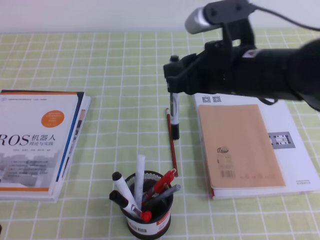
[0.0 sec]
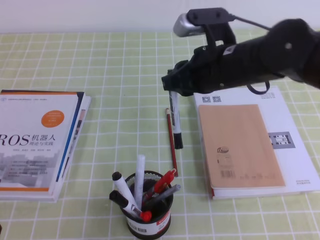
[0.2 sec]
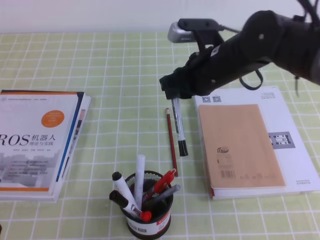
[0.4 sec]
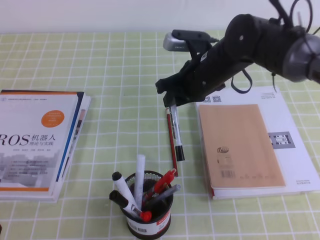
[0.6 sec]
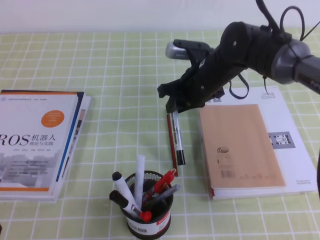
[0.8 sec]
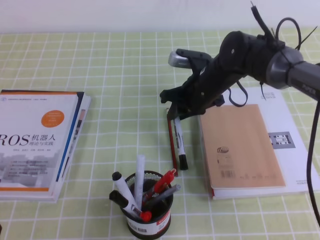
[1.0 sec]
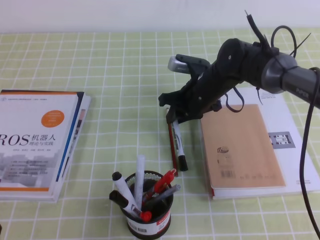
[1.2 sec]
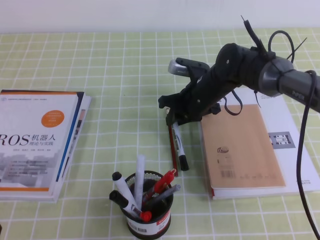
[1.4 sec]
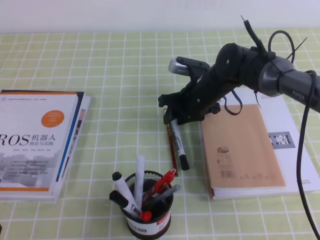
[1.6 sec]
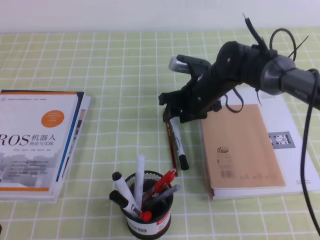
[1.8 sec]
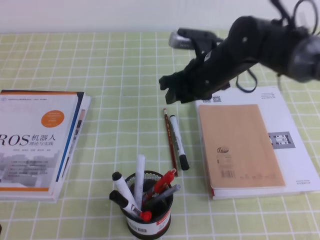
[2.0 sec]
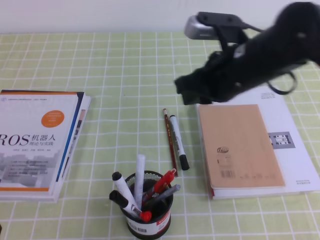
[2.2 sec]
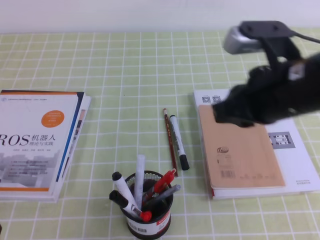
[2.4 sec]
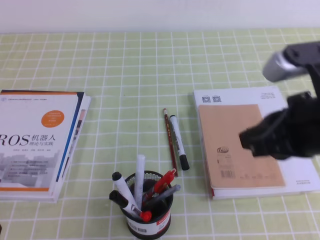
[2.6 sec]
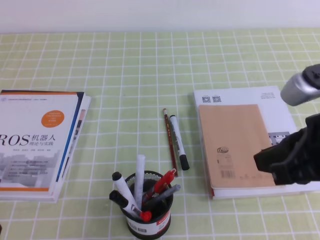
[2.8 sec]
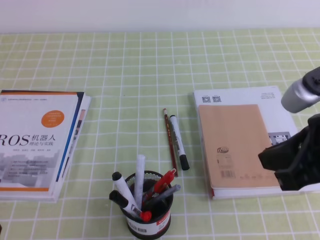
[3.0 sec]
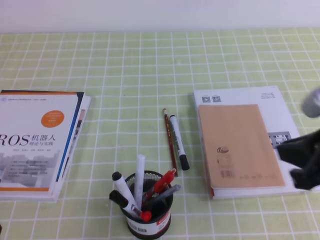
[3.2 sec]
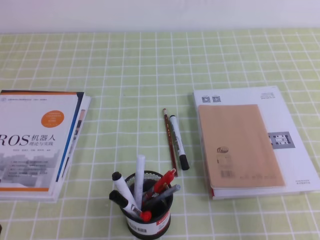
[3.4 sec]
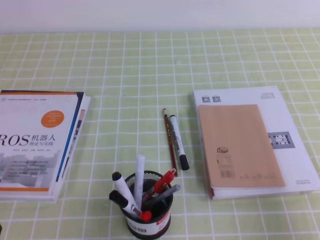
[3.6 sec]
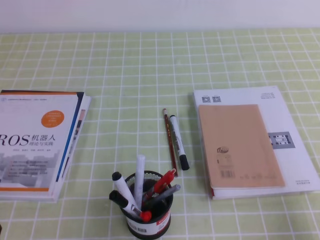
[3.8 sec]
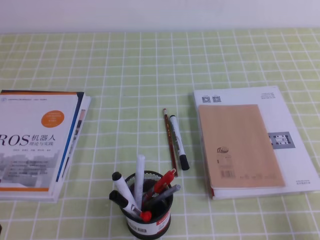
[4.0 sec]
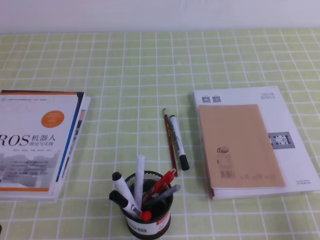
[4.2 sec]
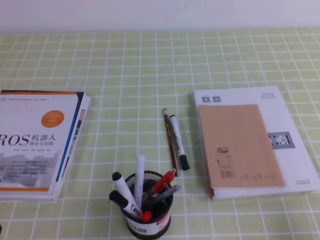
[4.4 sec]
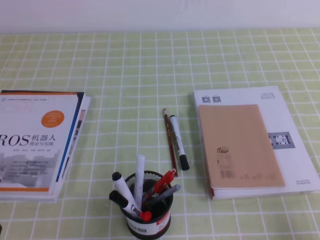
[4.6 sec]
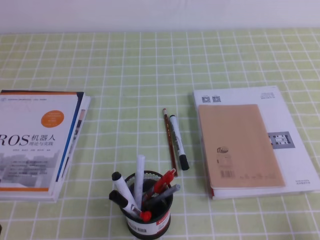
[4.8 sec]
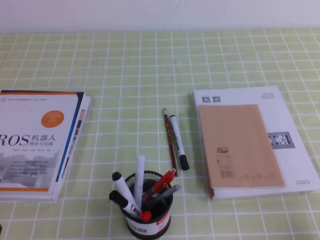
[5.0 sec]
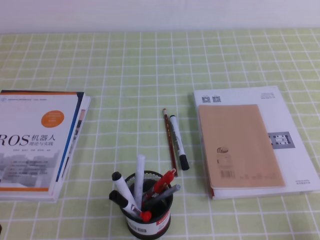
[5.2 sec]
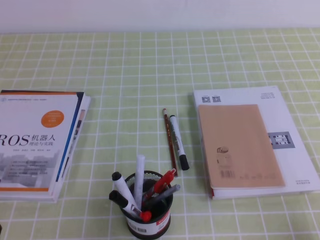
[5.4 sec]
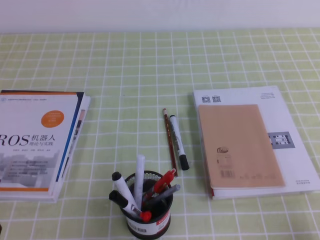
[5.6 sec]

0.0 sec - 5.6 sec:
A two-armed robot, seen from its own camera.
Step, 0.0 sec - 5.6 sec: Pick up the pen from the pen holder.
0.0 sec - 1.4 sec: The right gripper moves downward and forward, roughly 20 cm.
1.4 sec - 2.8 sec: The right gripper is displaced backward, upward and to the right by approximately 30 cm, and closes its fingers.
2.8 sec - 4.2 sec: The right gripper heads downward, to the right and backward, covering approximately 25 cm.
